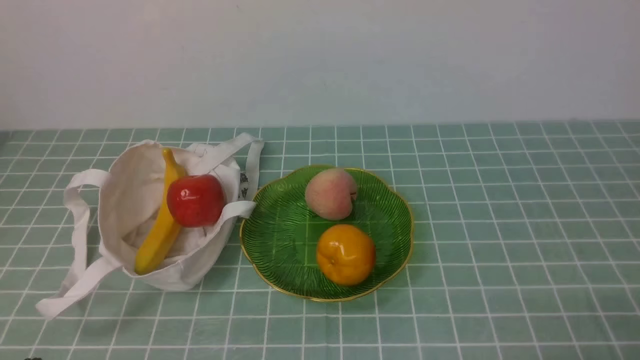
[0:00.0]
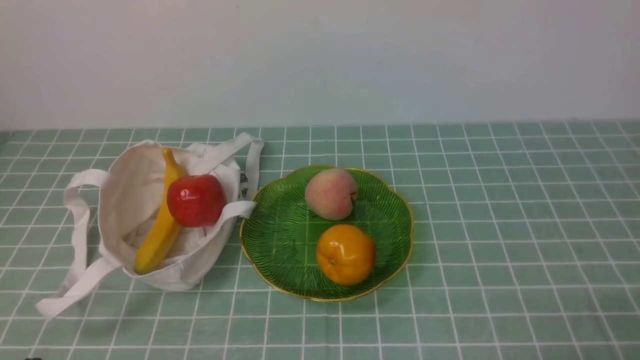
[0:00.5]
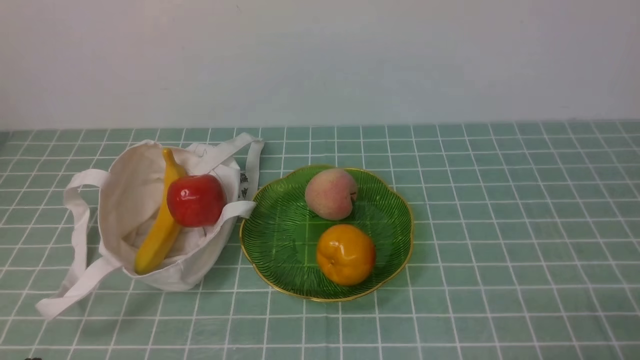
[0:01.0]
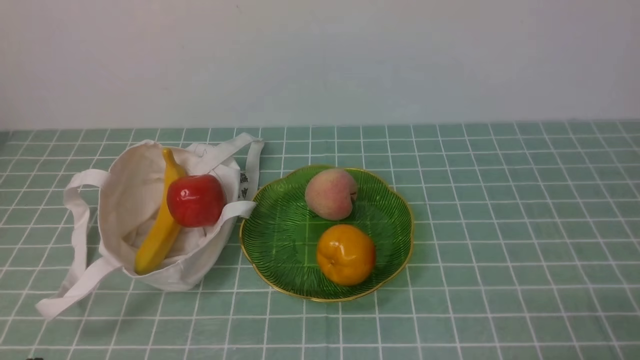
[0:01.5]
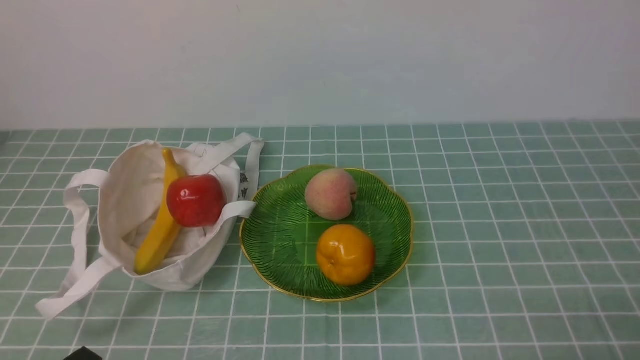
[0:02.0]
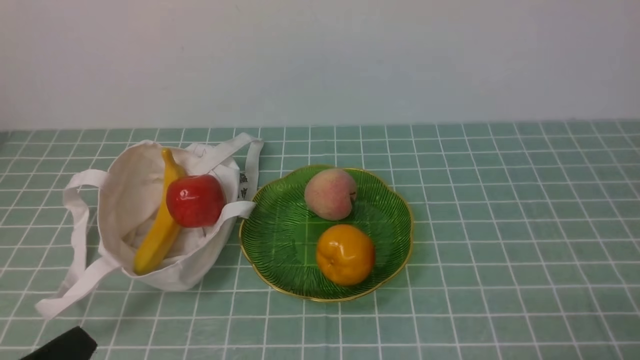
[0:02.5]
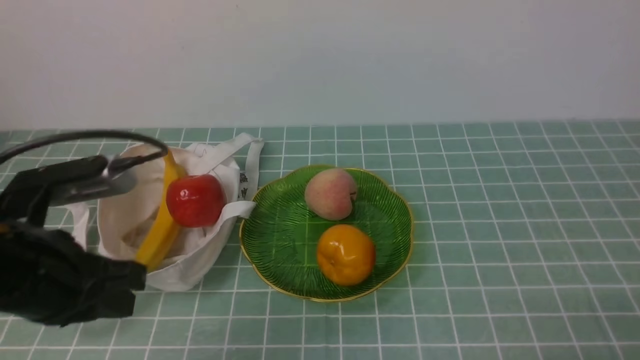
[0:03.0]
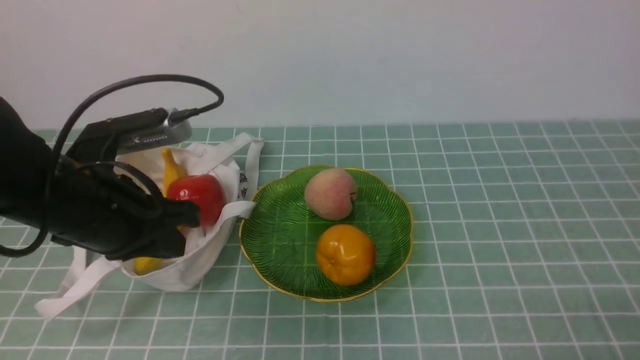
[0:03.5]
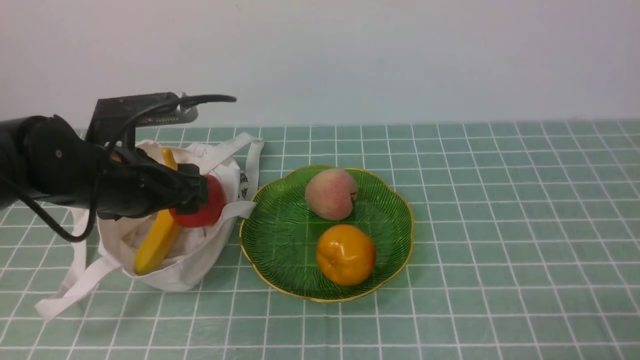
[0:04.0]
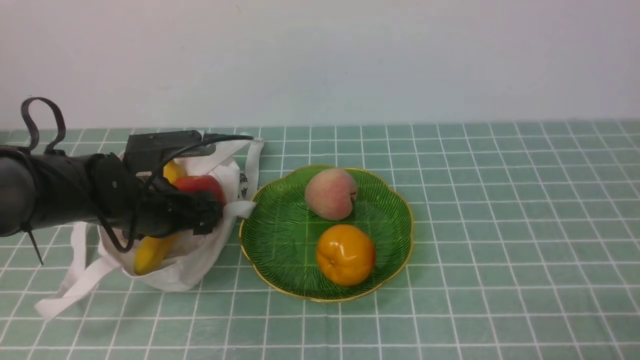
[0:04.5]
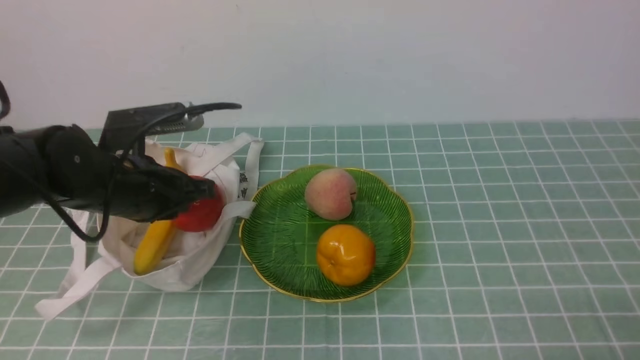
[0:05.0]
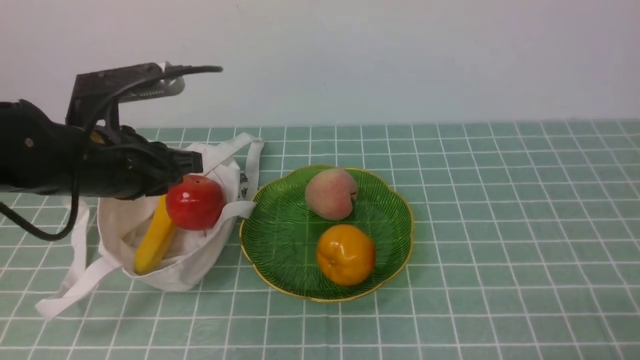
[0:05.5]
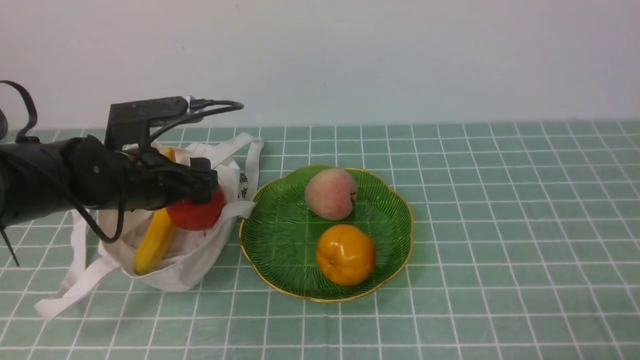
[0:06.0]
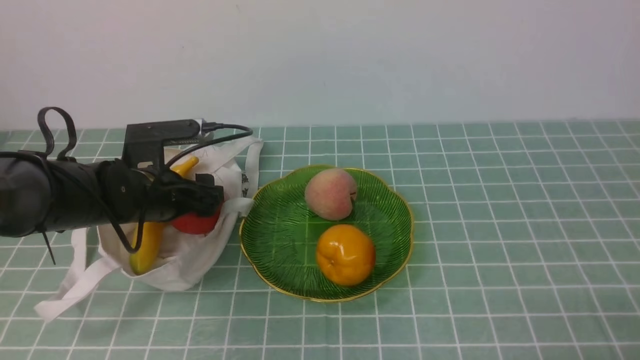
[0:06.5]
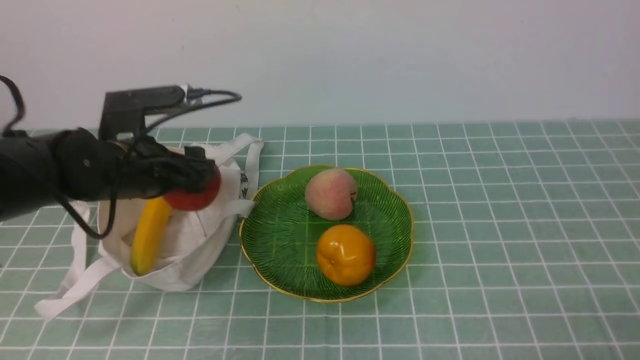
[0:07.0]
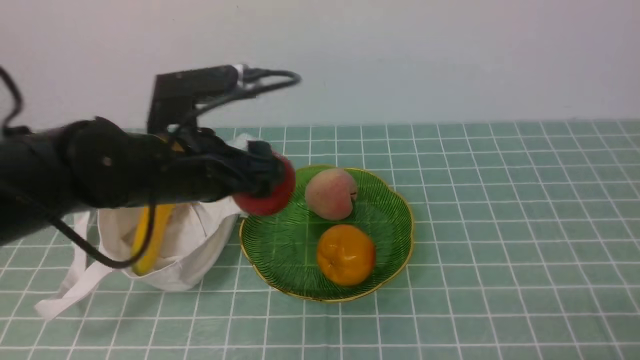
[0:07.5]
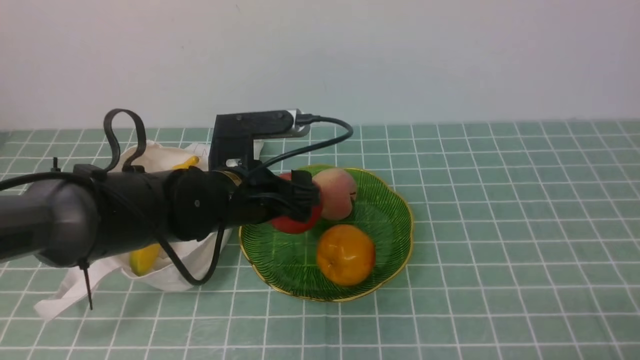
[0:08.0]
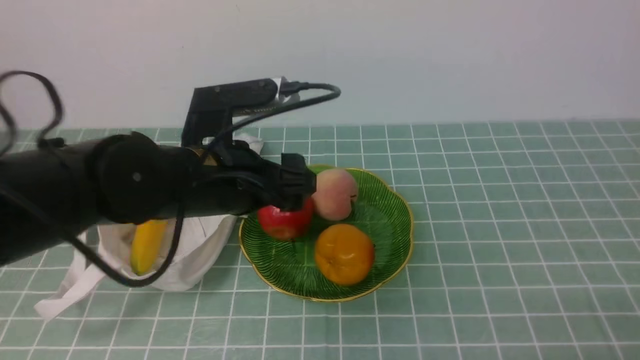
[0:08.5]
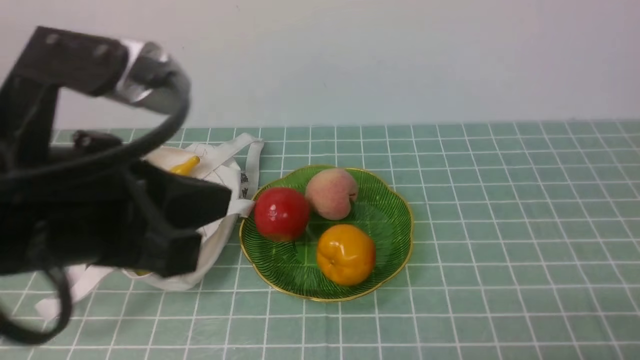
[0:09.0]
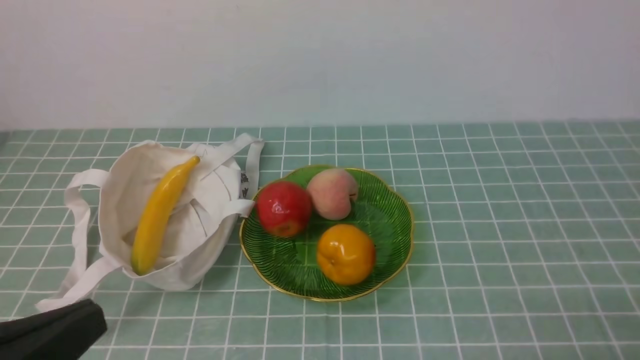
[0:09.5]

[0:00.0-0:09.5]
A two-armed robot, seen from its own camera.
Step, 0:00.0 to 0:06.5: use the left arm to grab an apple from the bag.
Step, 0:07.0 to 0:08.0: use the left arm to put the apple into the empty plate on the right.
0:02.0 to 0:04.0: The left gripper shifts approximately 25 cm forward, and opens up.
0:04.0 to 0:05.5: The left gripper travels downward and back again, approximately 5 cm each way, and closes up.
0:05.5 to 0:07.5: The left gripper travels downward and back again, about 10 cm each way, and opens.
0:07.5 to 0:09.5: The left gripper travels backward by roughly 25 cm, and closes its fingers.

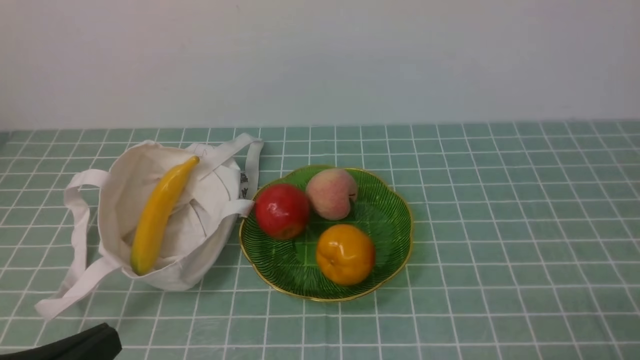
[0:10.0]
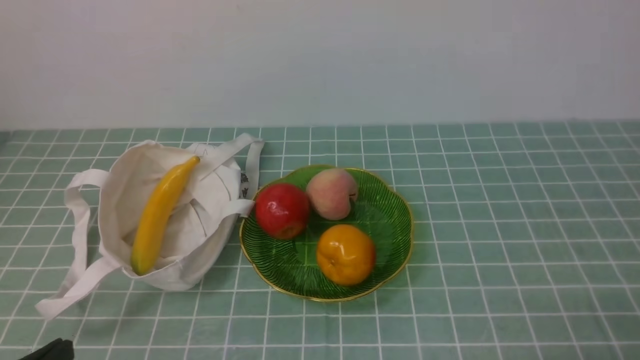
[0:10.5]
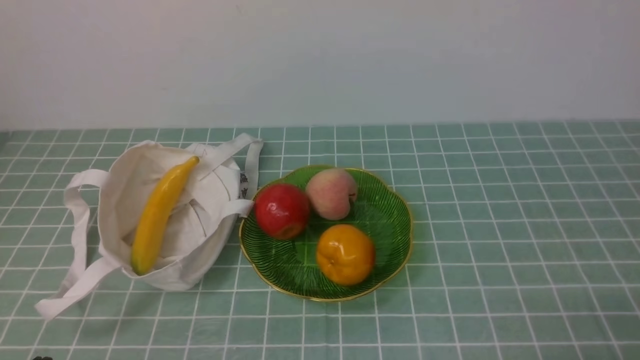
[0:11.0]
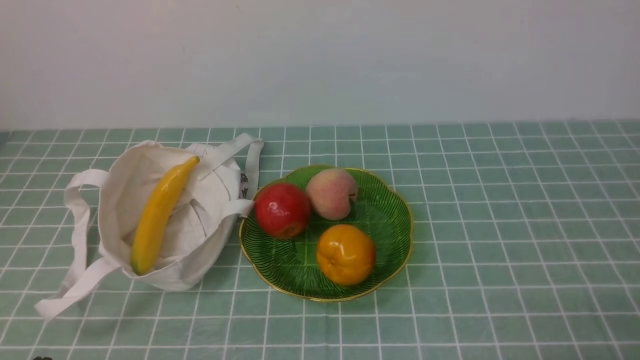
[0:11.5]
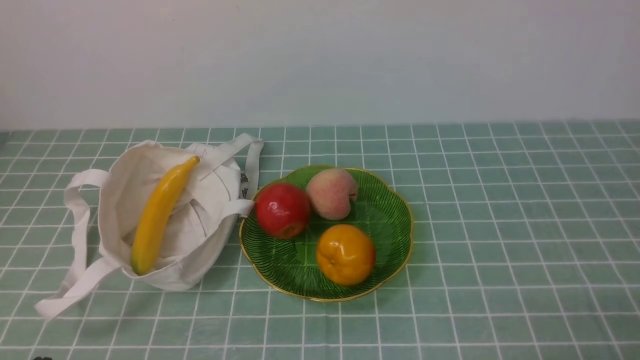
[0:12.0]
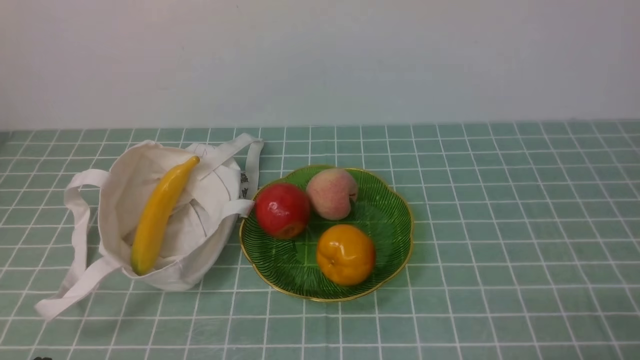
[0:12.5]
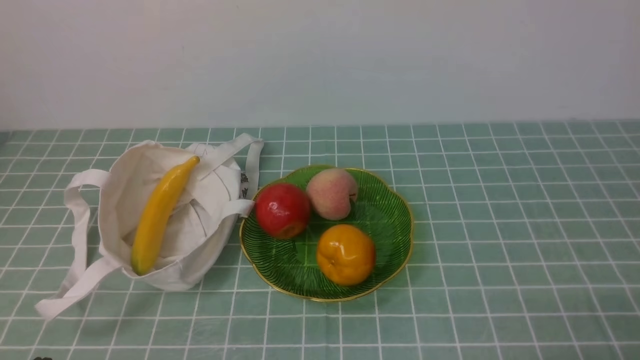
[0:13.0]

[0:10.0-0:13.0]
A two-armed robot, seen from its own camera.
0:10.0 to 0:11.5: The left gripper moves downward, roughly 10 cm.
0:11.5 to 0:13.0: Both grippers stay put.
